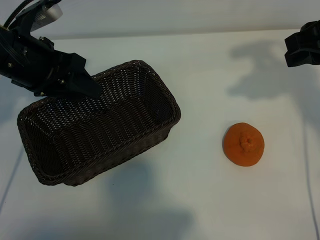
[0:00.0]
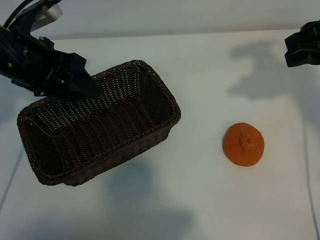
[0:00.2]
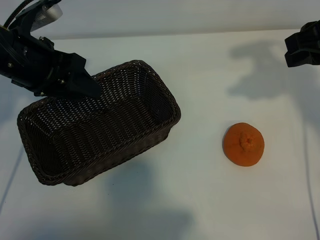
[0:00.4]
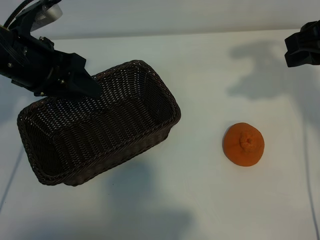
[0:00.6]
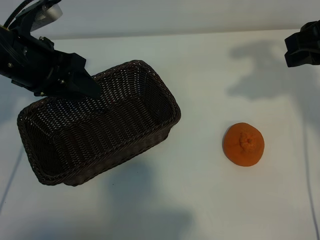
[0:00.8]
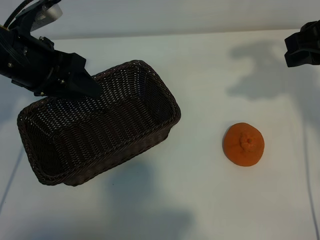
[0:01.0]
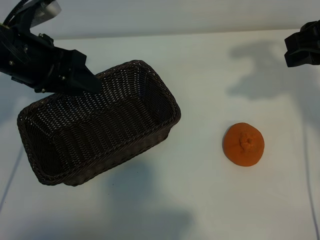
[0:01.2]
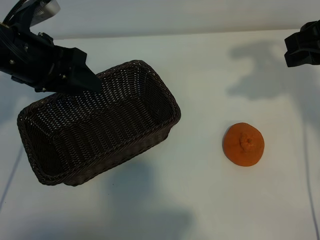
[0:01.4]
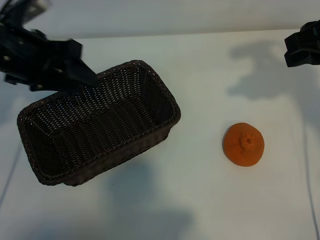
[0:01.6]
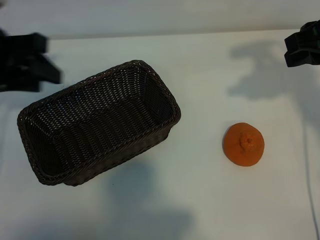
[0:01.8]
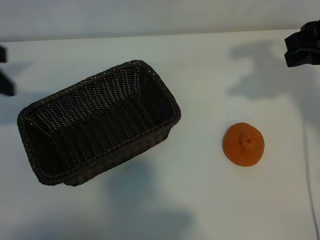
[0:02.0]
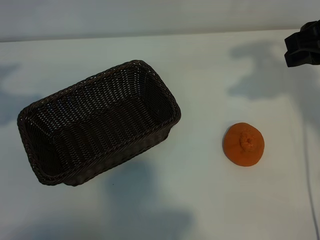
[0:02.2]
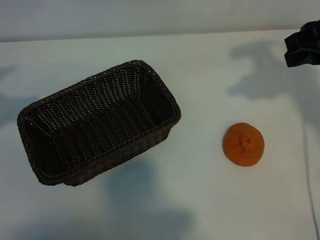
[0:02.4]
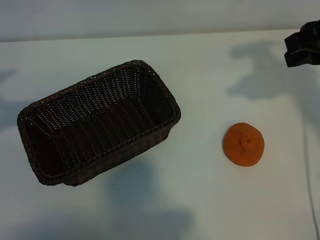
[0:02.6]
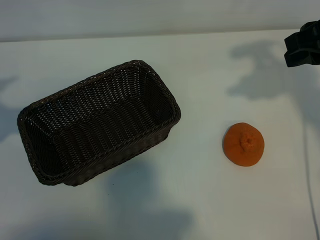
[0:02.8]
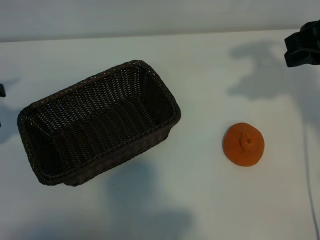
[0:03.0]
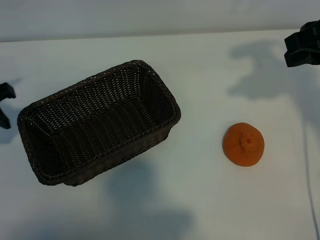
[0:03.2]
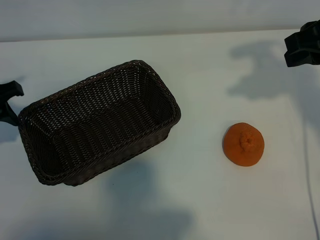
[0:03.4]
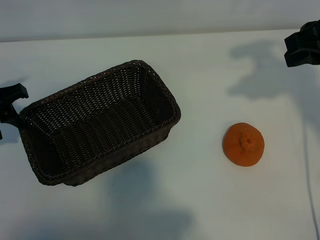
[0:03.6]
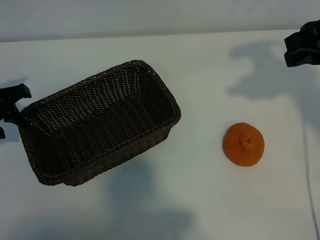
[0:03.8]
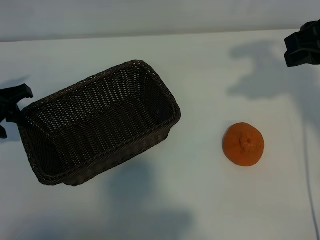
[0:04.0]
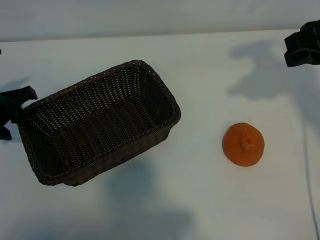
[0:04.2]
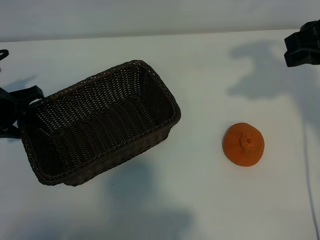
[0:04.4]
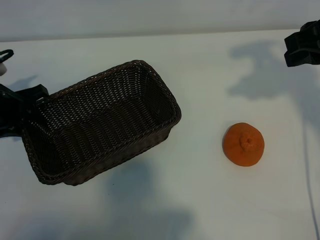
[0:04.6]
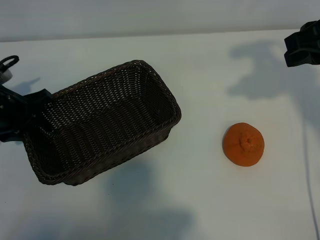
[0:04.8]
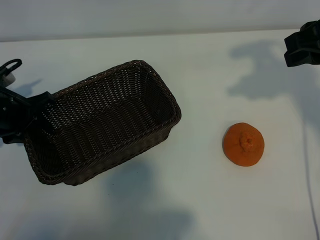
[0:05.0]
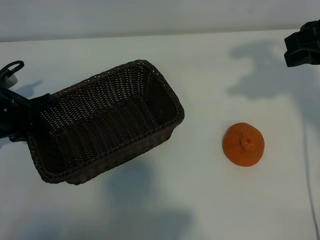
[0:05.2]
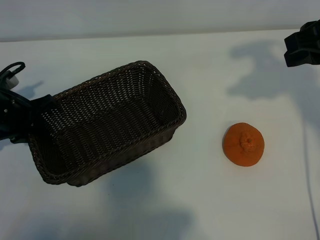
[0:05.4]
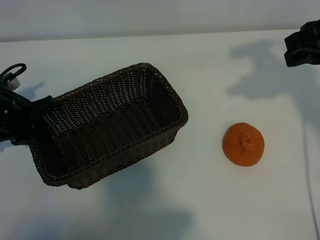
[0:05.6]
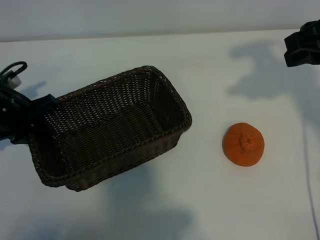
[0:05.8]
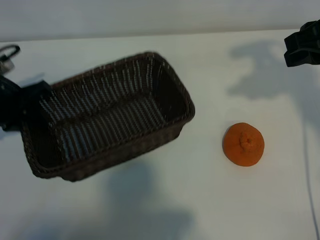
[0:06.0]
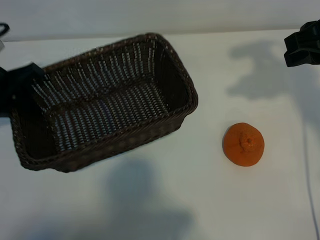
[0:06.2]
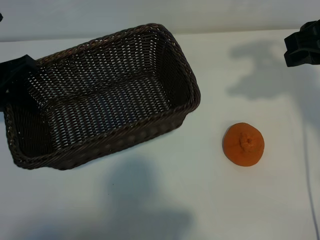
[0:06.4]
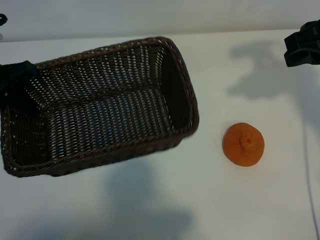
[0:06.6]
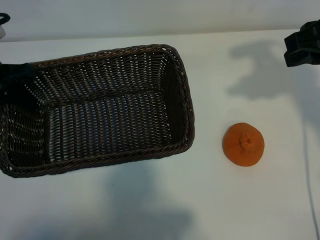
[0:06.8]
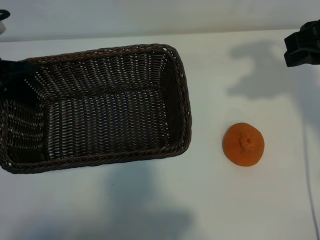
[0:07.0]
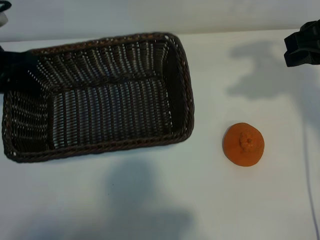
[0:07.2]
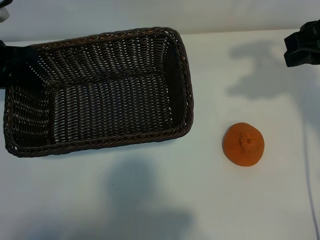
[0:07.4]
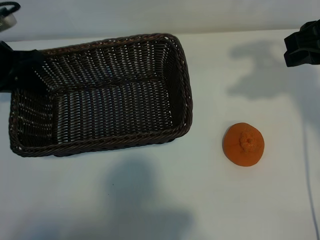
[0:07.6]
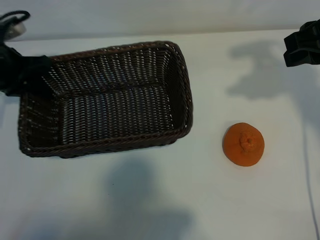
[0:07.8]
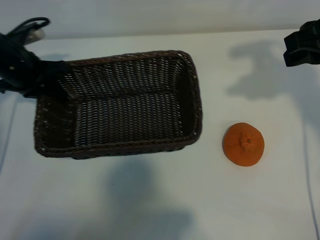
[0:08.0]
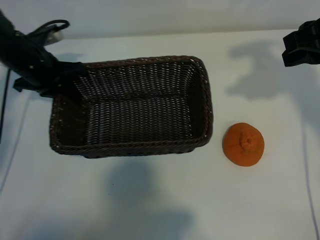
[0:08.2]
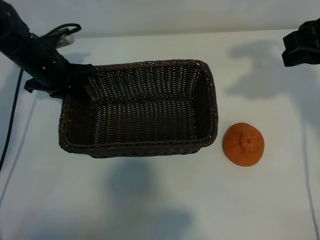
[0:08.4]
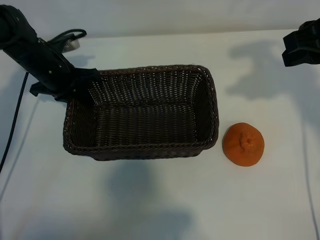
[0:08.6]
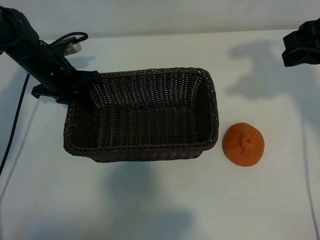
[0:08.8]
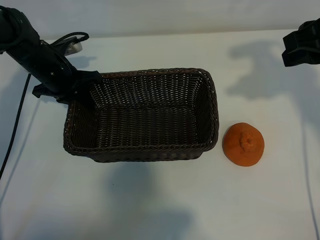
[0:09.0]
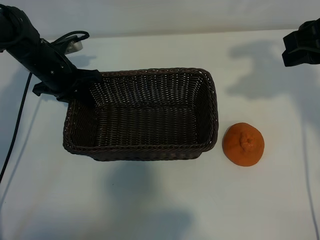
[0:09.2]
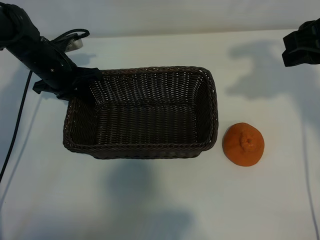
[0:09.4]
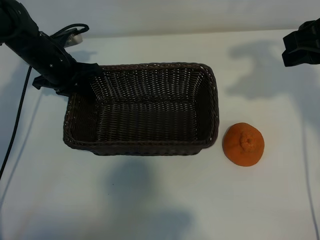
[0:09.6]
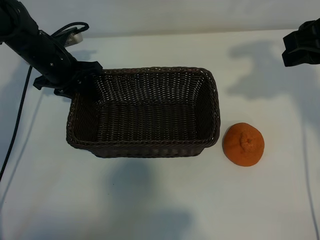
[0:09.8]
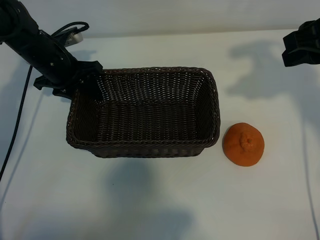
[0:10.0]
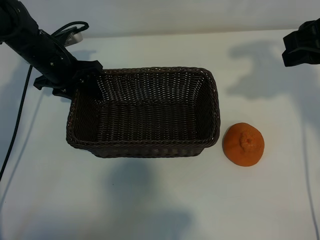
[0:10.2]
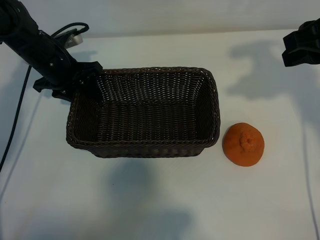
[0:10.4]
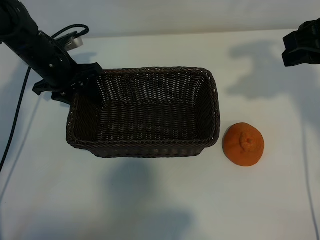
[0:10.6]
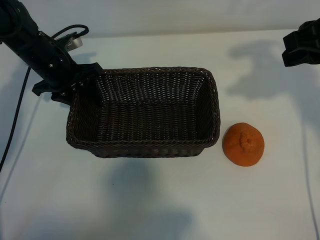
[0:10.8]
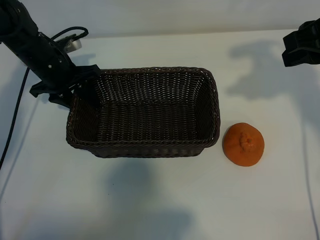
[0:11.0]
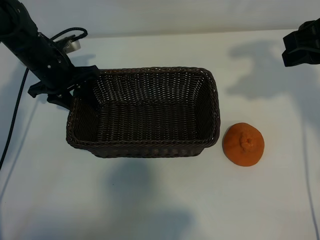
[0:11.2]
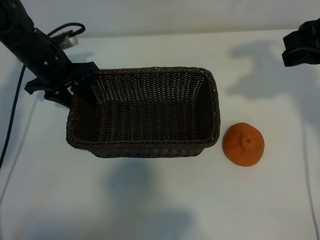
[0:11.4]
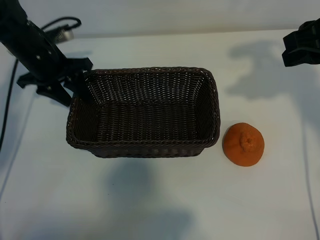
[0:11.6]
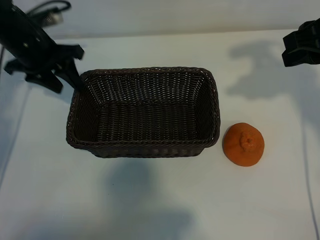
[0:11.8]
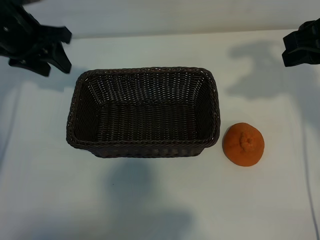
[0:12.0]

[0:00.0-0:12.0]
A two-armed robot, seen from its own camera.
Task of the whole recording: pick up the orange and put it into the basket.
Step, 0:01.0 to 0:05.2: Grasp the basket with left gripper.
Step, 0:05.4 to 0:09.6: Place the basket in the center of view with left gripper.

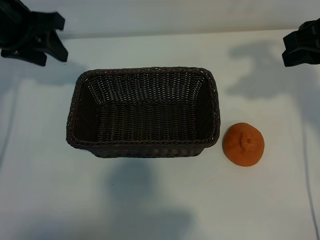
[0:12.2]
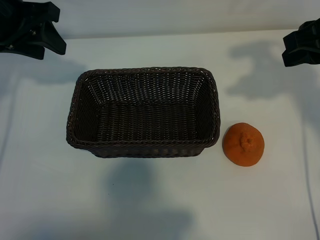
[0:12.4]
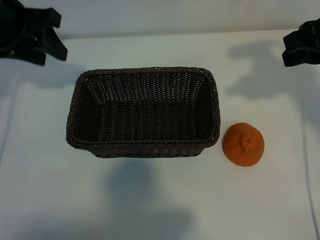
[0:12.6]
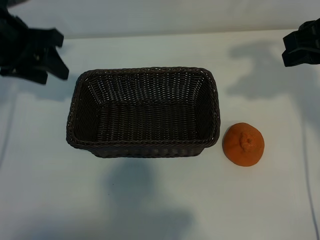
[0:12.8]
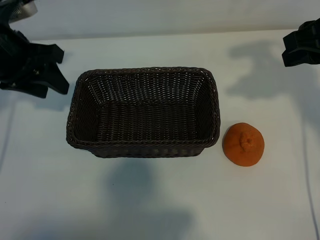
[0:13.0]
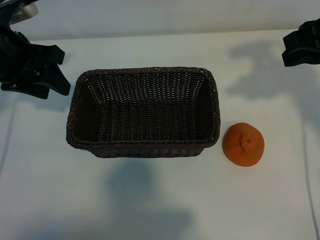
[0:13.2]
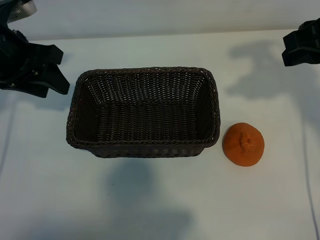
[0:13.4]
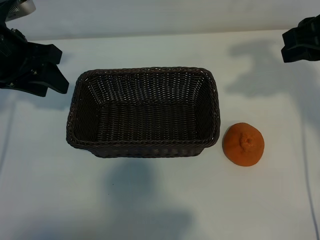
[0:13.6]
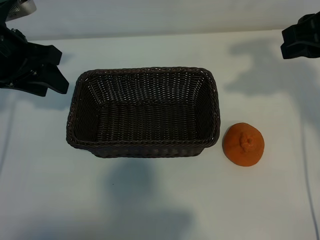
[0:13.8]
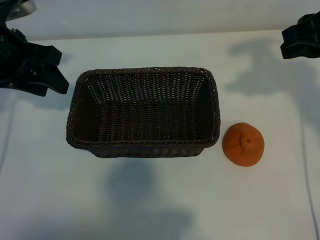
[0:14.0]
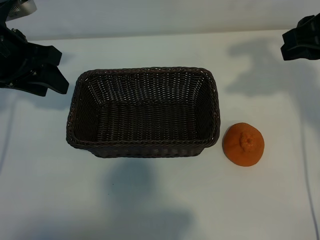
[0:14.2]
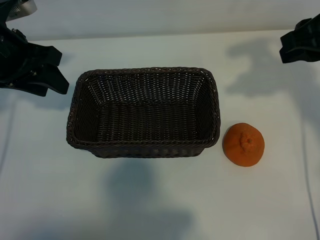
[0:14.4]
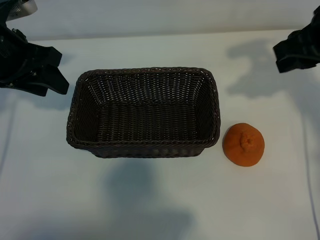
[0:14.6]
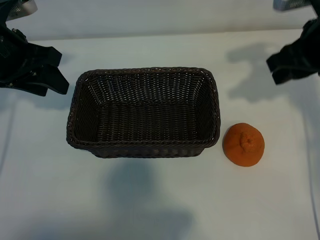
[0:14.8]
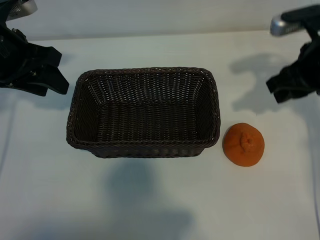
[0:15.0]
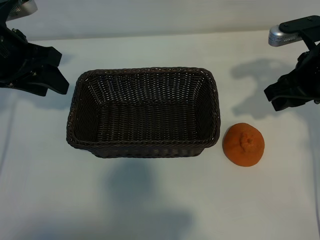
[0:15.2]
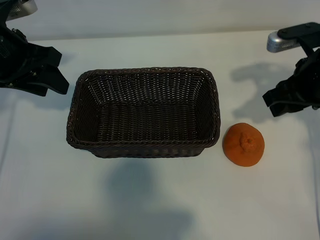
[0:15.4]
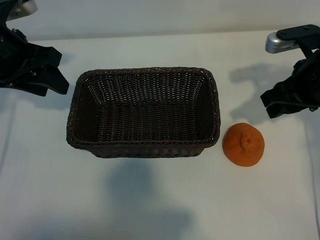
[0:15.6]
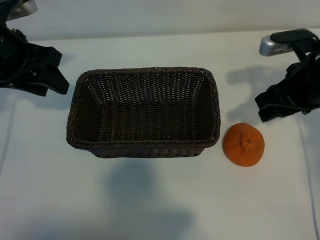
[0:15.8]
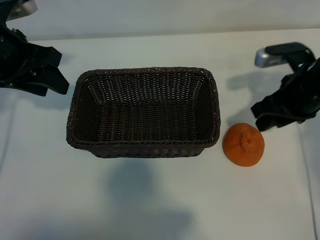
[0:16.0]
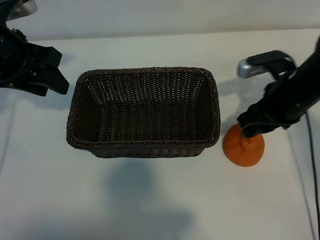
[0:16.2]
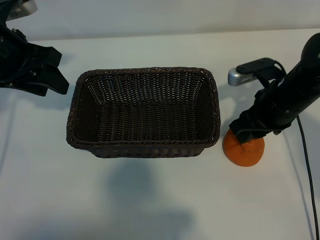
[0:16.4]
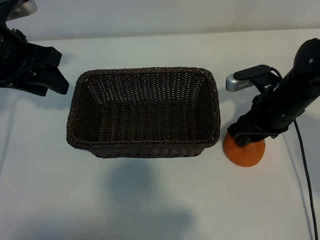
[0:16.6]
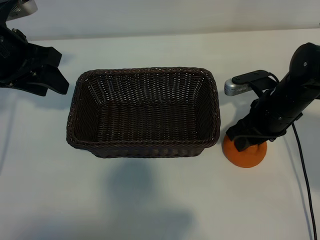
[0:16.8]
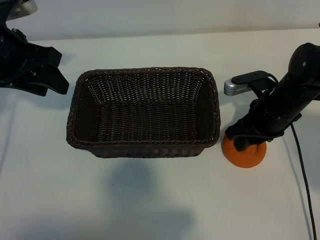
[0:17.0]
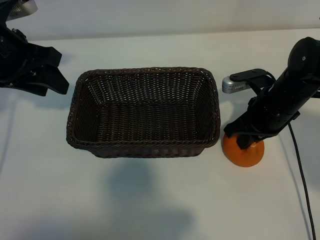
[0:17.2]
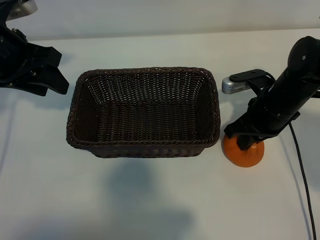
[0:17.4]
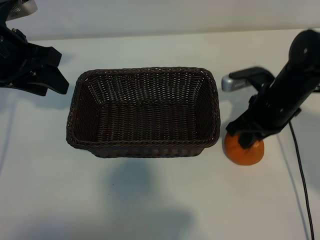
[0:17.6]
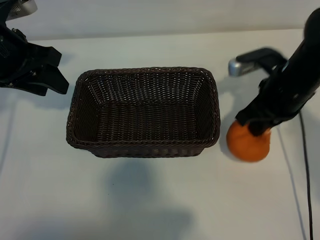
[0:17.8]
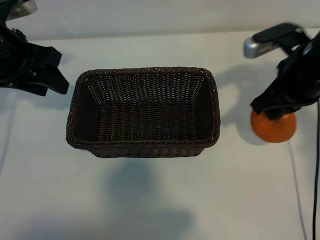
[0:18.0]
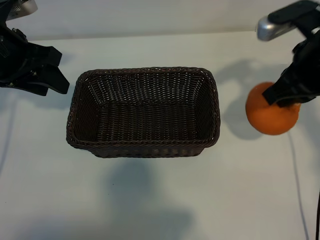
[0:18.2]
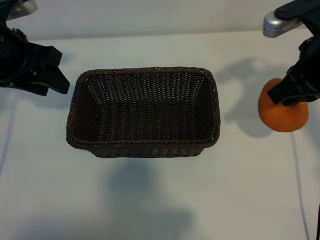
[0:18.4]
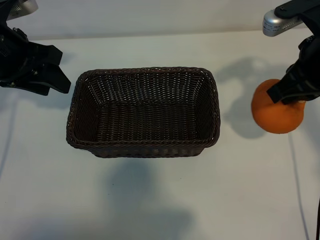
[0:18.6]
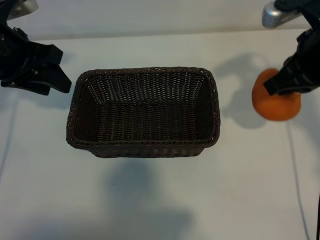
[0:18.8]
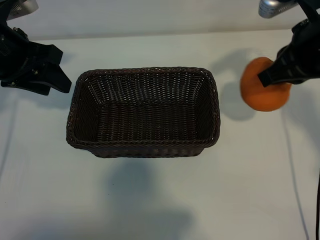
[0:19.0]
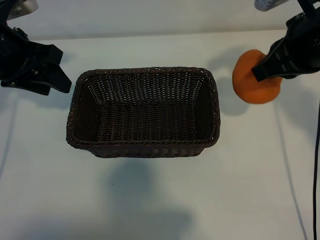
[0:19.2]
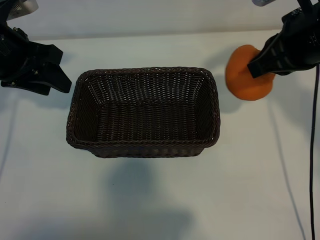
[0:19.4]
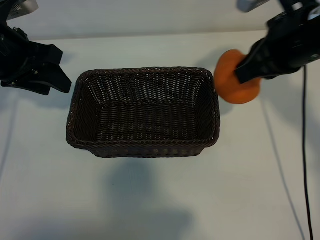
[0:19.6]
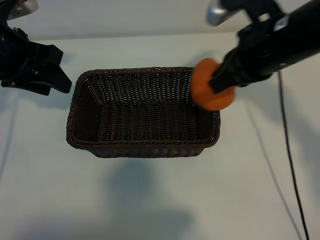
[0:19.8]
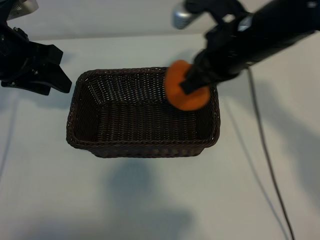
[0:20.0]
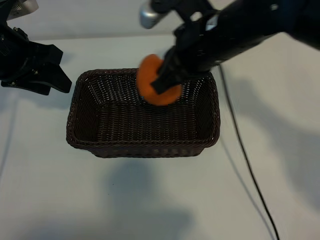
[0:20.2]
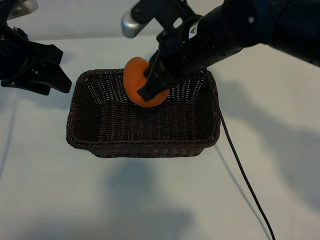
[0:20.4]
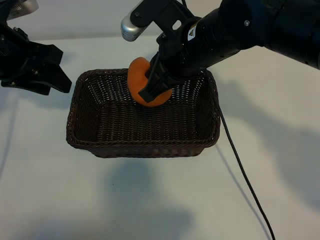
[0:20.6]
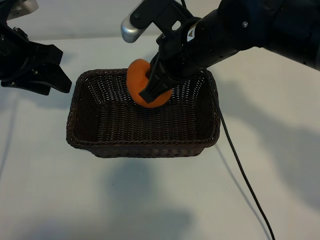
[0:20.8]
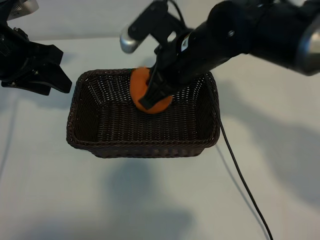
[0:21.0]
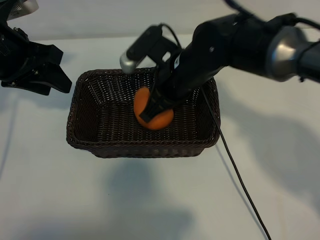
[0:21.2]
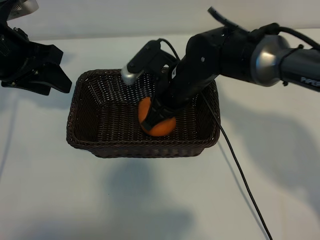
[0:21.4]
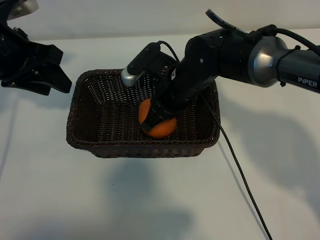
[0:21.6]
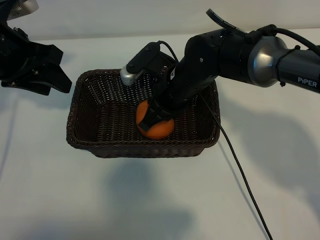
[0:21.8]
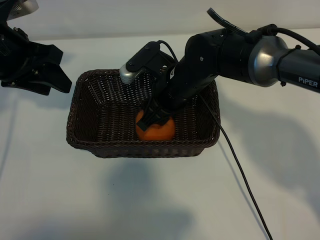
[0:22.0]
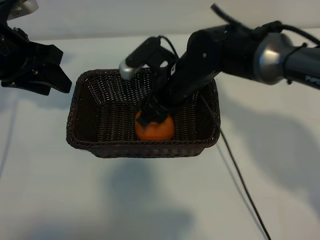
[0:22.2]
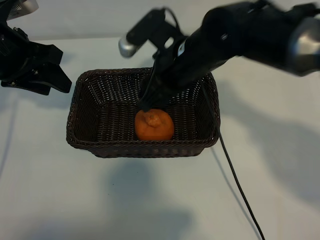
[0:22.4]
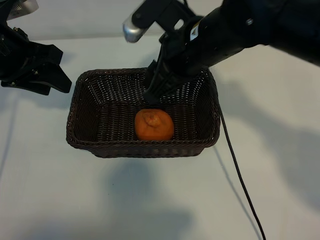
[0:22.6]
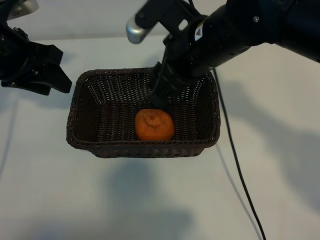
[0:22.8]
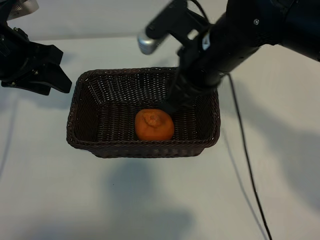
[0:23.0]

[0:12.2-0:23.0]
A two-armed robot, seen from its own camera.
Task of the whole recording: pick up the orange and put it into the basket.
Step, 0:12.2 to 0:17.0: Grasp the orange with right gripper.
Step, 0:17.4 to 0:21.8: Place the orange in the basket with right gripper.
